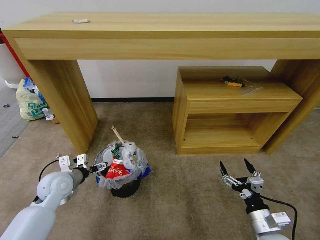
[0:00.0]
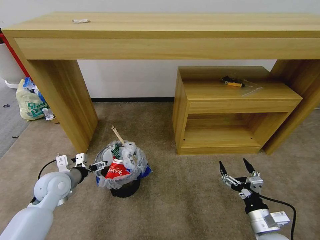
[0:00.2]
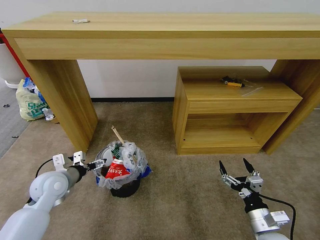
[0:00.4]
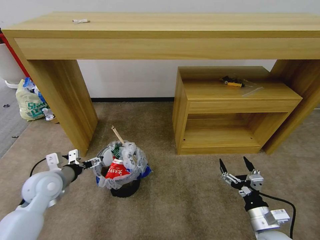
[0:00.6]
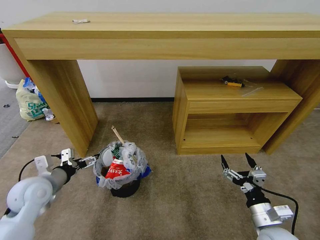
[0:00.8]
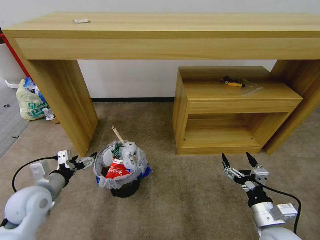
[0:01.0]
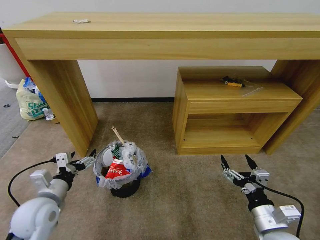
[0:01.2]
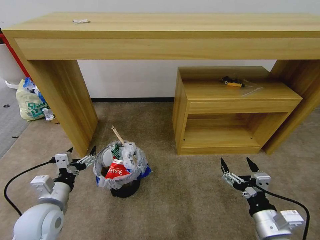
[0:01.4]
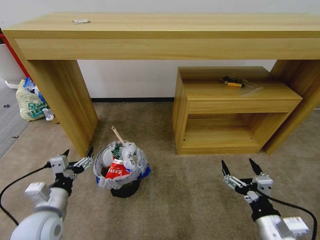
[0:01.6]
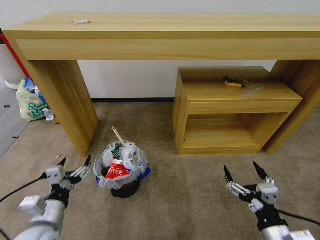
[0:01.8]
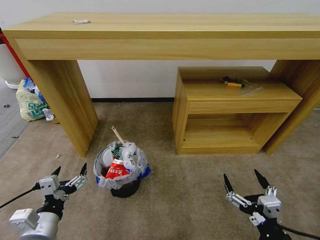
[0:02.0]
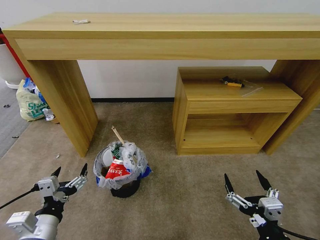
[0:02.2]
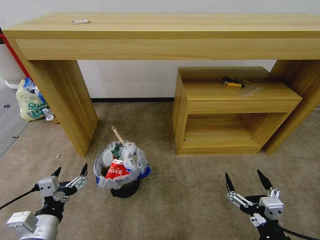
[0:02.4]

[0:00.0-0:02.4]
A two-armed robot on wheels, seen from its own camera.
Task of the whole recording: Pick up the trash bin and place the garbage on the floor into it.
0:00.0 to 0:01.2: The right gripper goes about 5 cm upward. The left gripper heads backward, covering some 10 cm.
0:01.2 to 0:02.4: The two grippers go roughly 10 cm backward.
